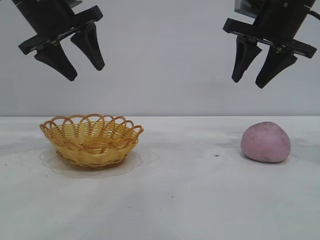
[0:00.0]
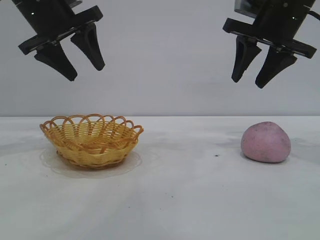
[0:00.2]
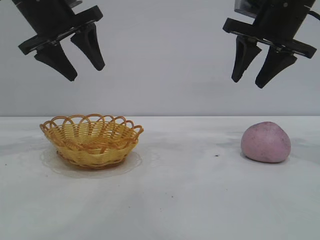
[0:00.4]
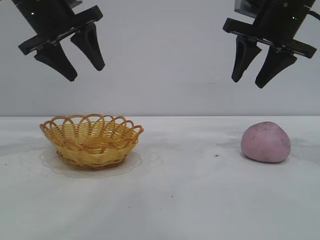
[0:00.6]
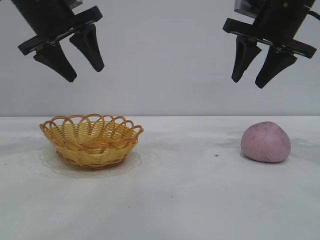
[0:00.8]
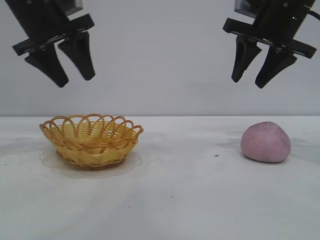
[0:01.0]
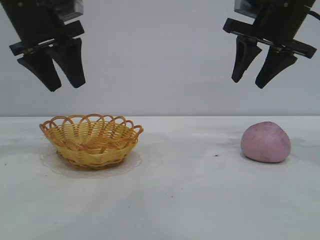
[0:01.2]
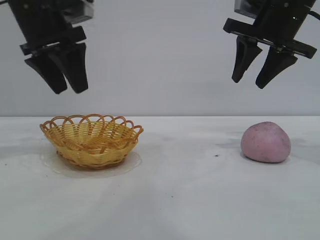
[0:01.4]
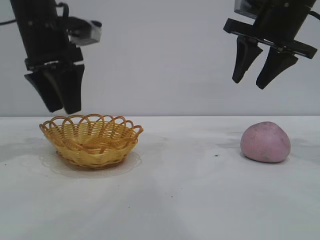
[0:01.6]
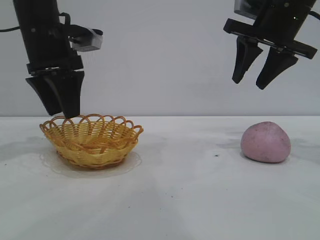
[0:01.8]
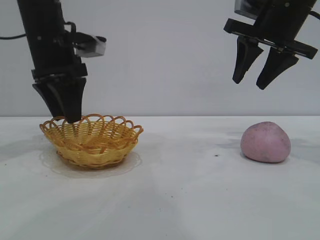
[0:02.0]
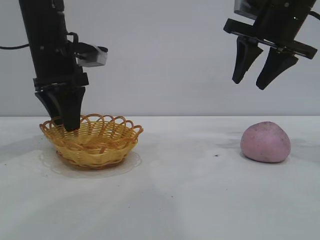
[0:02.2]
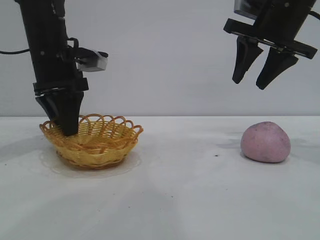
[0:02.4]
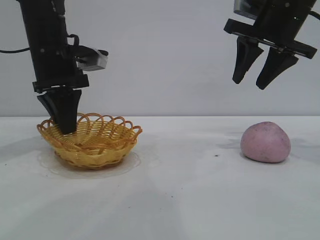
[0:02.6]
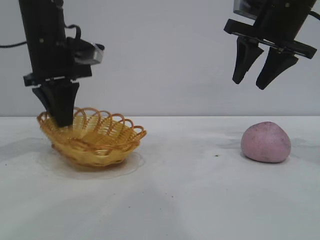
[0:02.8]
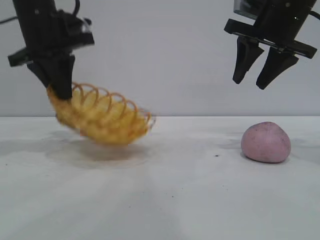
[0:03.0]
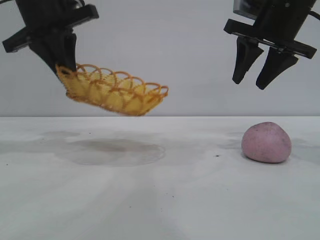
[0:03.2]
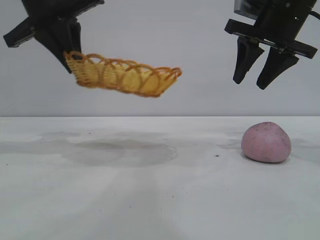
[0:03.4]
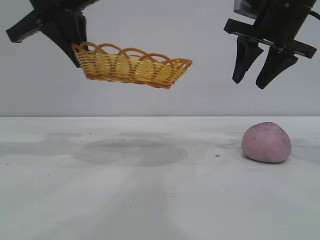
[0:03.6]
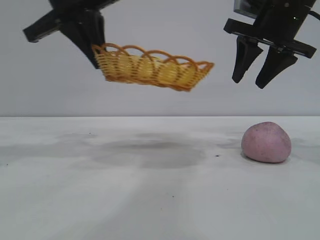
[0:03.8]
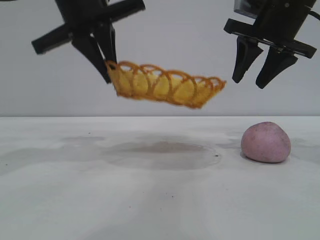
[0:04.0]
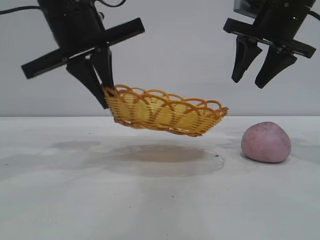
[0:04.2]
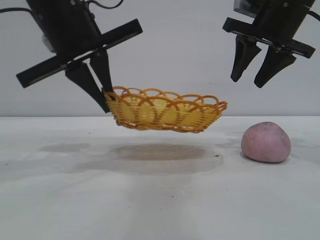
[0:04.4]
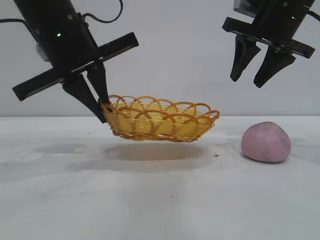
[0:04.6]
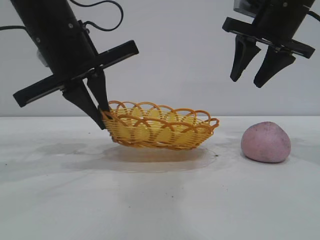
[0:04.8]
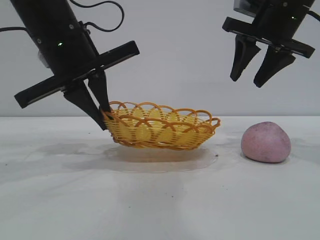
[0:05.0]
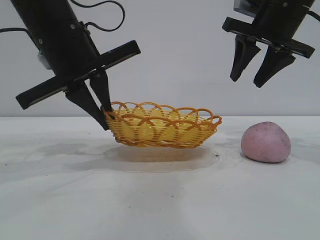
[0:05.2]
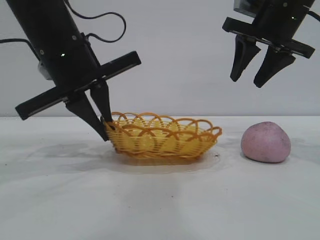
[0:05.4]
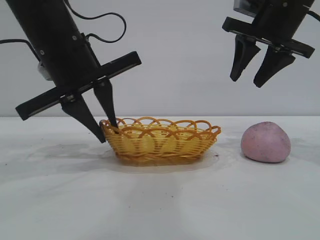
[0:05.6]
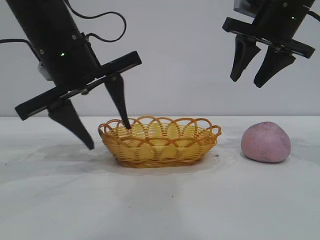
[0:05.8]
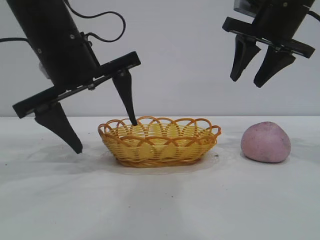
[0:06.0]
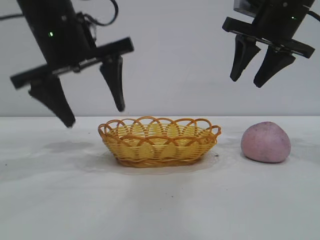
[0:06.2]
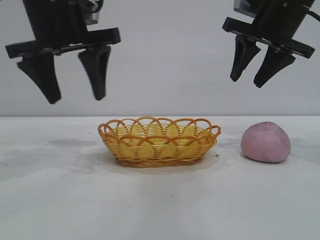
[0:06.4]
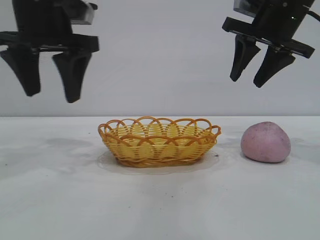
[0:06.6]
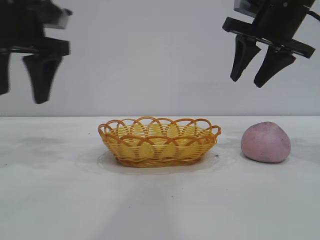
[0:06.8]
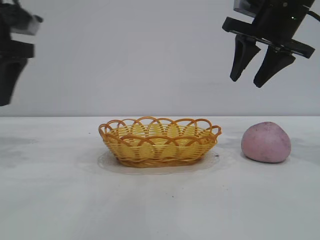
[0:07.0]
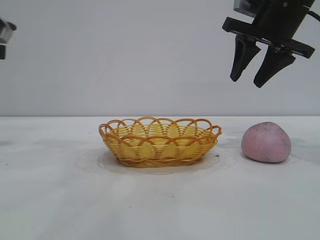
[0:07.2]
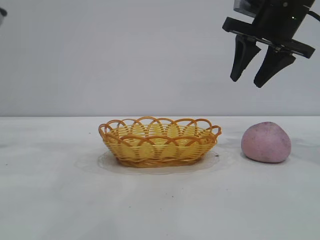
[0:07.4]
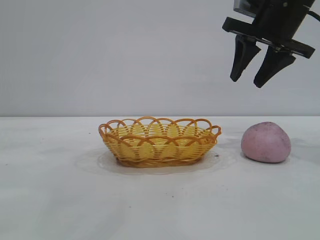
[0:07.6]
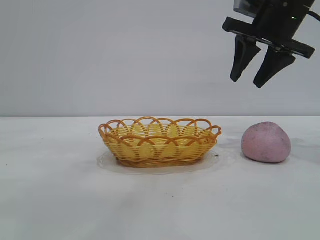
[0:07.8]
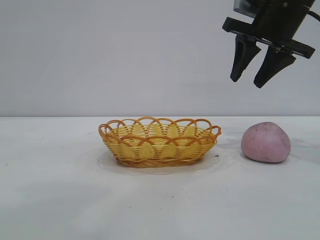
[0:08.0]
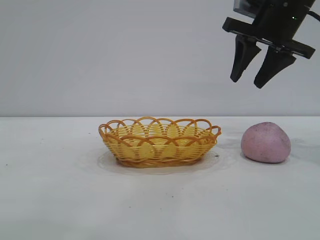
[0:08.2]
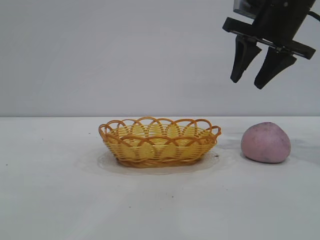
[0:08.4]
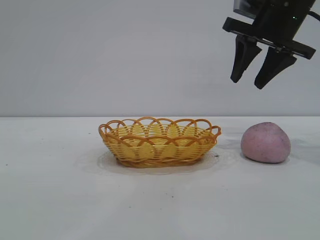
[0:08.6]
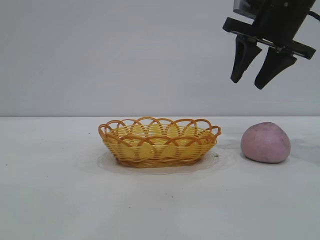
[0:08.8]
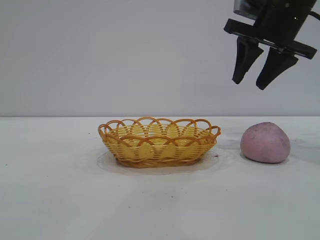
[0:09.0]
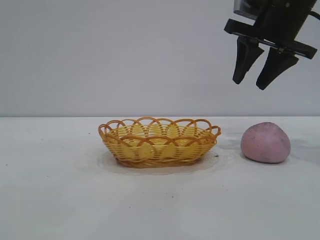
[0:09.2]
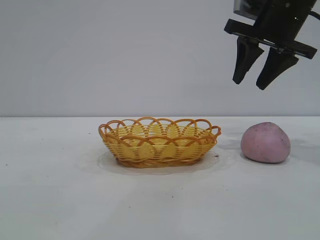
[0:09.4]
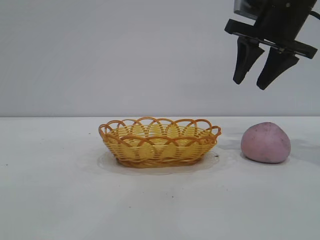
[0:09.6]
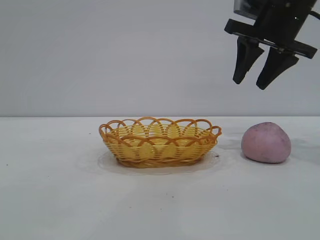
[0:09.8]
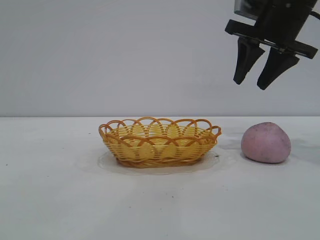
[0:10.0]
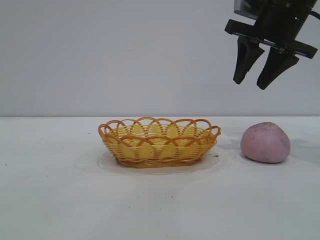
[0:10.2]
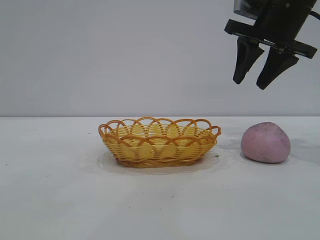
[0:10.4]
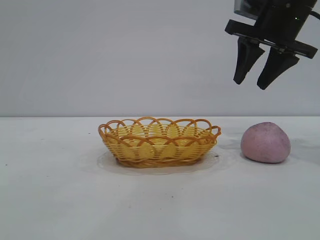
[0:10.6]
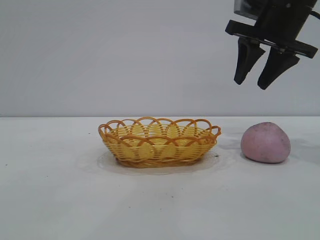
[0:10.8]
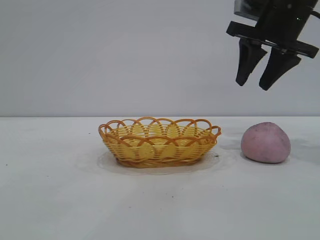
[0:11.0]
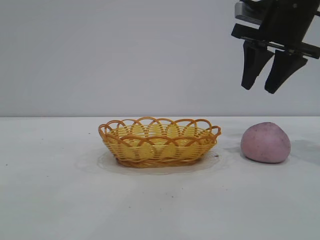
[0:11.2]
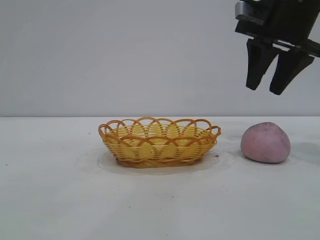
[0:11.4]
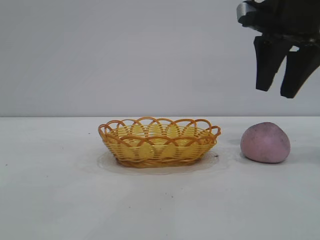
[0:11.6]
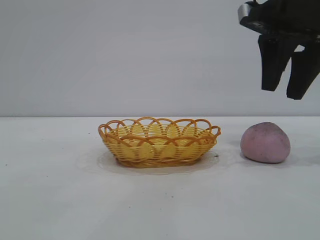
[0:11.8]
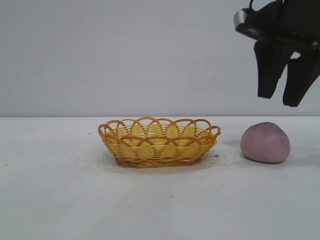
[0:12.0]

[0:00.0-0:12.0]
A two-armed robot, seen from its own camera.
Task of the whole recording: pick up the peach and put it into the basket.
Step, 0:00.0 to 0:06.6: Move the basket to the center of view.

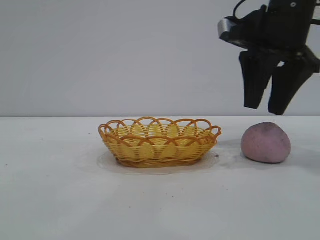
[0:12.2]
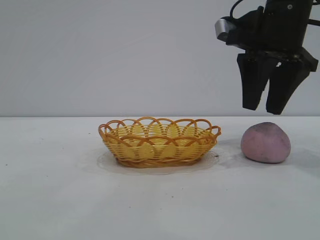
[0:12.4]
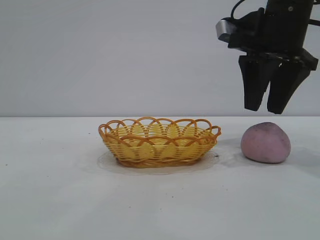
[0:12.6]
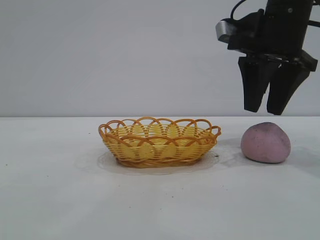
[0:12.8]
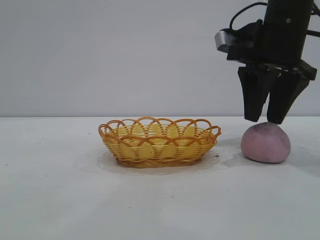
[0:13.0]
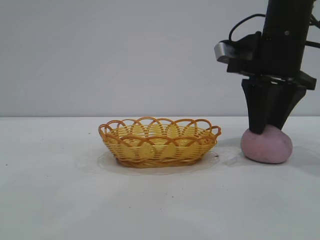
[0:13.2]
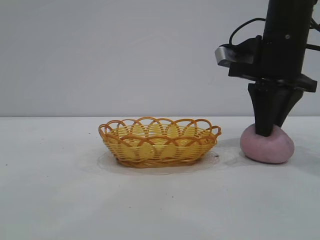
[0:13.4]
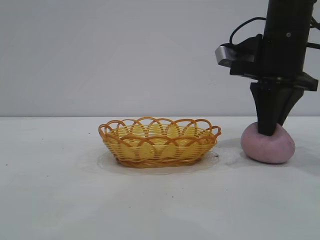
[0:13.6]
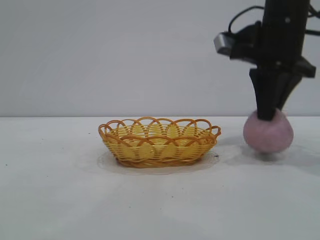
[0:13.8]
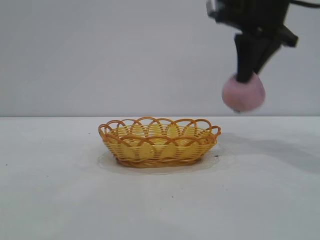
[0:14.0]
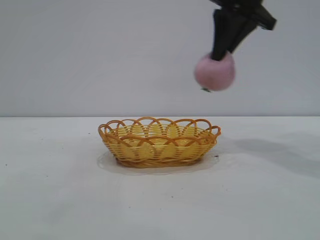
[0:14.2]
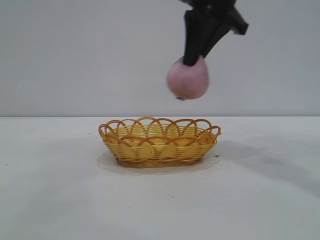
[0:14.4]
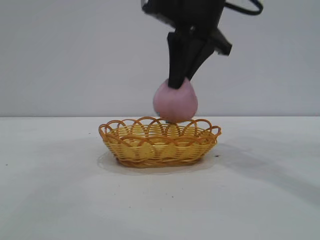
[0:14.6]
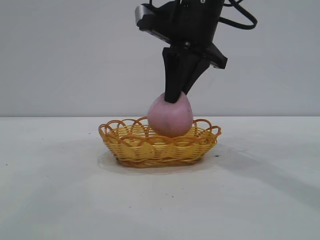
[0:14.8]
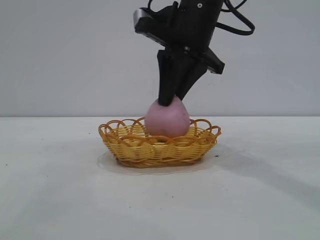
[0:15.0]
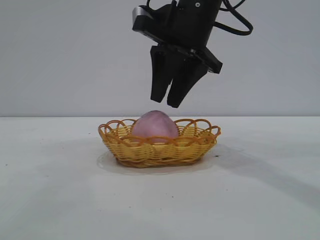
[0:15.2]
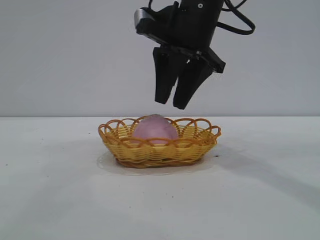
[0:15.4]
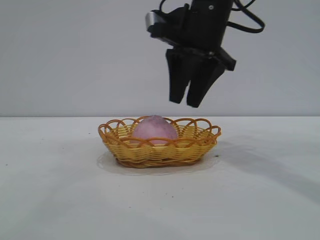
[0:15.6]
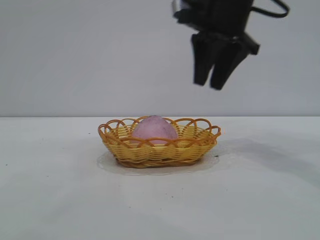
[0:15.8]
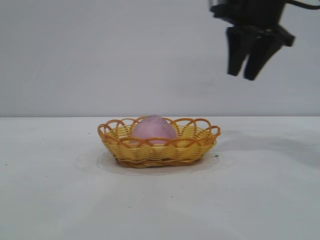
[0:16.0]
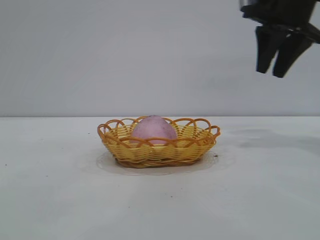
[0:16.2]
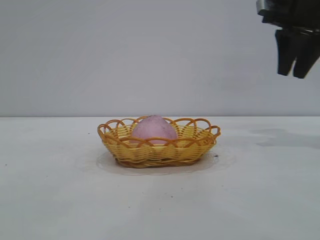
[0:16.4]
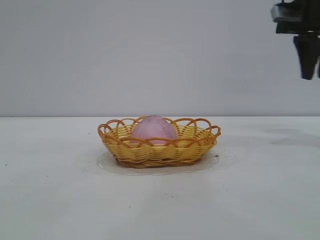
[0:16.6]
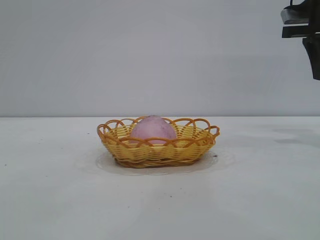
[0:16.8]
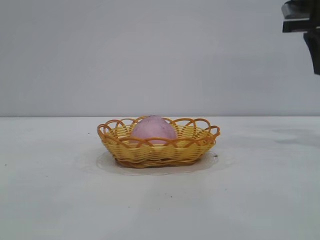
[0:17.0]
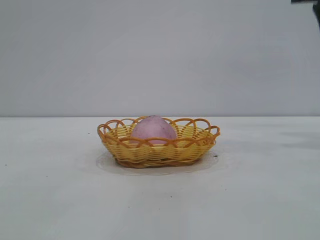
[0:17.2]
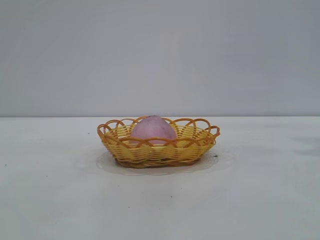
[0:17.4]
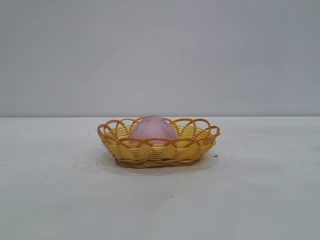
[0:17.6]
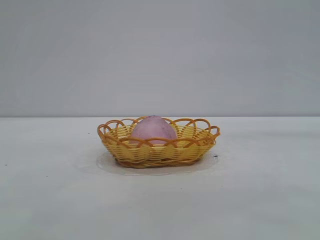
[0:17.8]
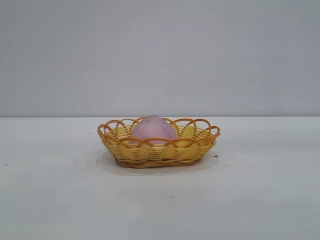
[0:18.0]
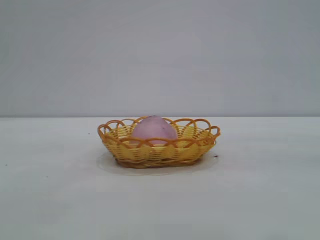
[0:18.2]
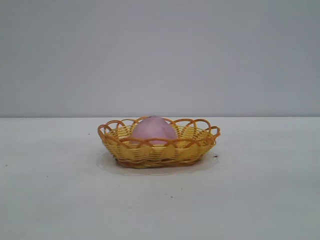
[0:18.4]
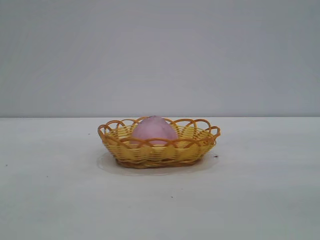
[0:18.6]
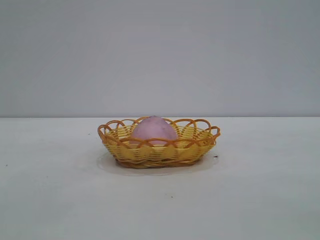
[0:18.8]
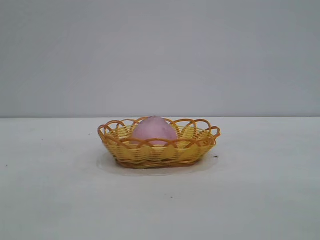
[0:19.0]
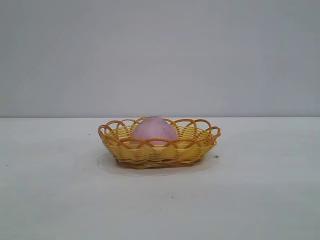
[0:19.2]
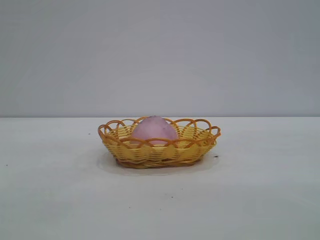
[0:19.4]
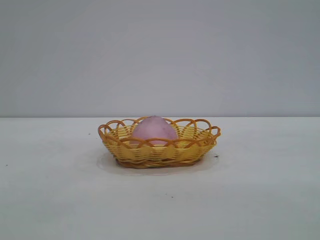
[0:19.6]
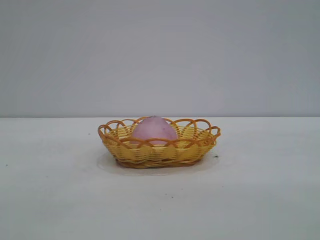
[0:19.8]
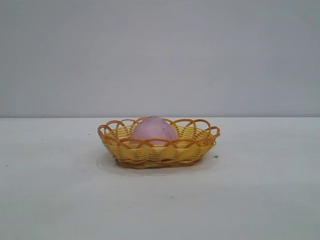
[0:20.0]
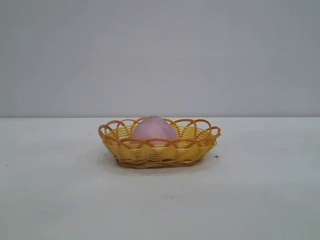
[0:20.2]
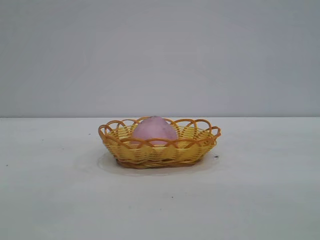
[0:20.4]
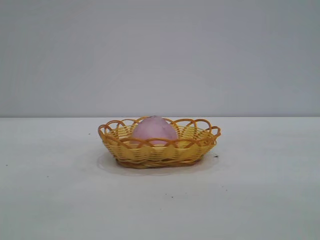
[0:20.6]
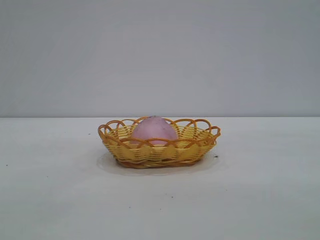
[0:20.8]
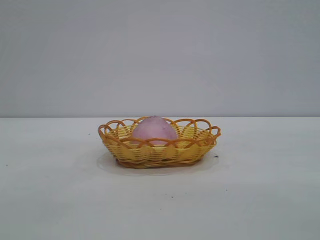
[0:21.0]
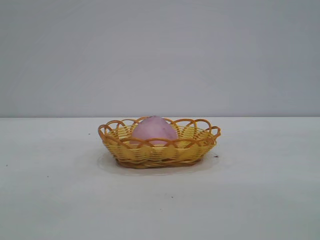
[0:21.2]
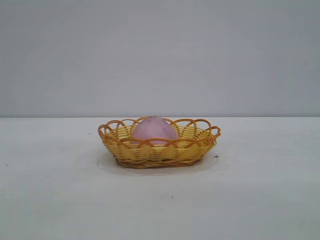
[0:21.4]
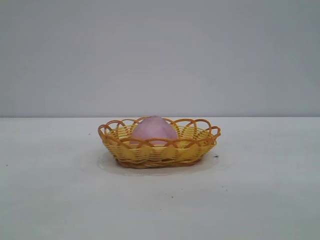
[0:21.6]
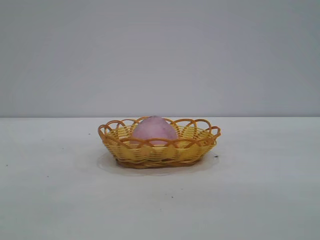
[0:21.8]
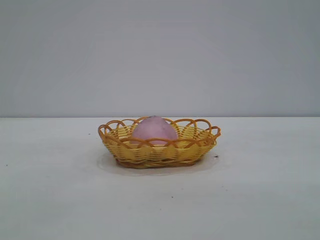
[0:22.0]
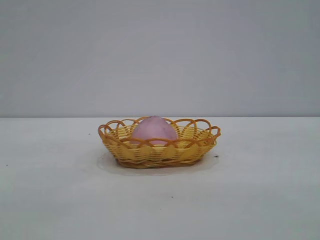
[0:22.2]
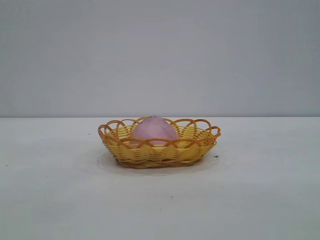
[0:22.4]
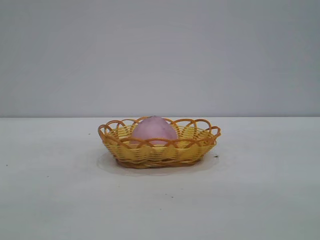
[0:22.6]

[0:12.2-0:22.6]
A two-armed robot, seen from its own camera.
Task of the whole recording: pick up the peach and put it into the basket.
Step, 0:14.0 to 0:16.0: place the peach into the basket.
